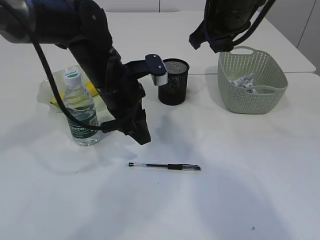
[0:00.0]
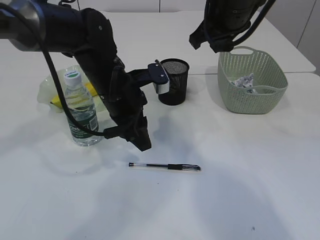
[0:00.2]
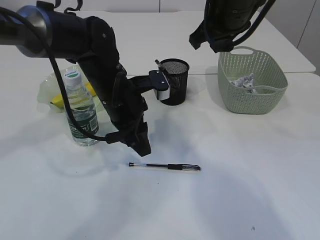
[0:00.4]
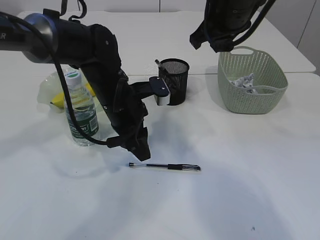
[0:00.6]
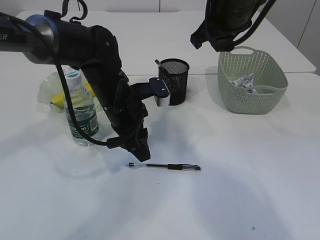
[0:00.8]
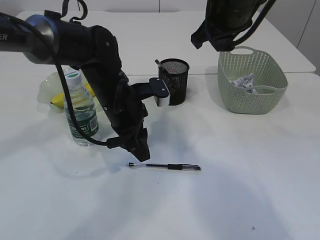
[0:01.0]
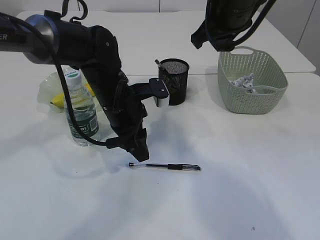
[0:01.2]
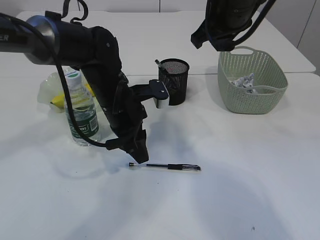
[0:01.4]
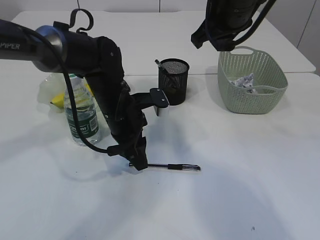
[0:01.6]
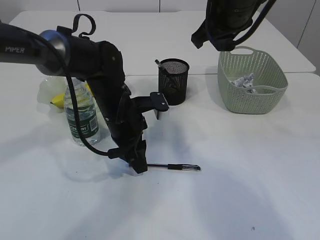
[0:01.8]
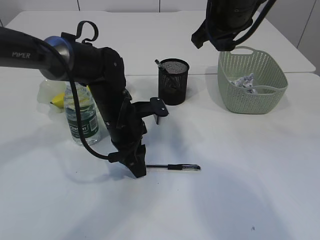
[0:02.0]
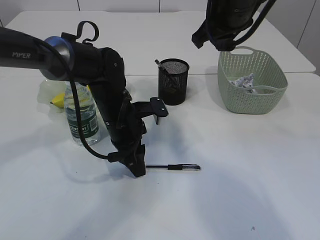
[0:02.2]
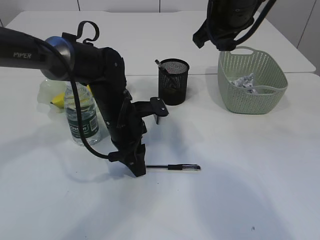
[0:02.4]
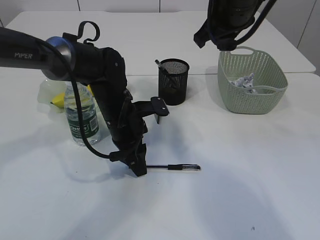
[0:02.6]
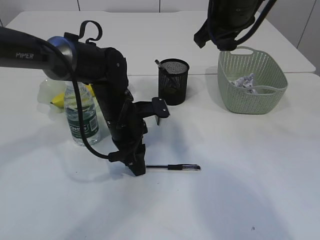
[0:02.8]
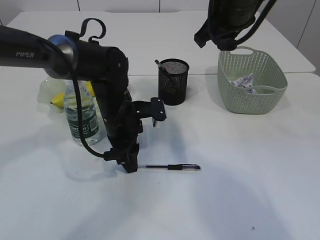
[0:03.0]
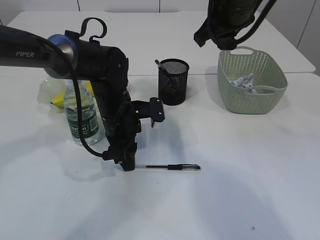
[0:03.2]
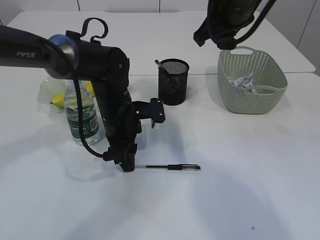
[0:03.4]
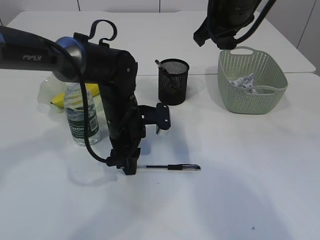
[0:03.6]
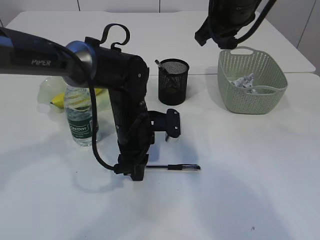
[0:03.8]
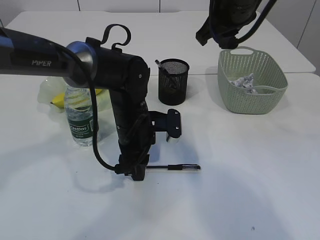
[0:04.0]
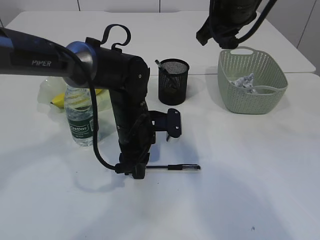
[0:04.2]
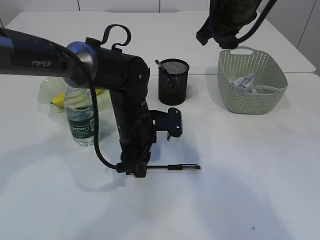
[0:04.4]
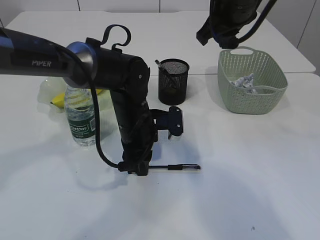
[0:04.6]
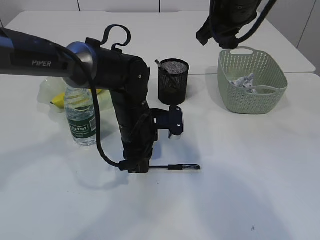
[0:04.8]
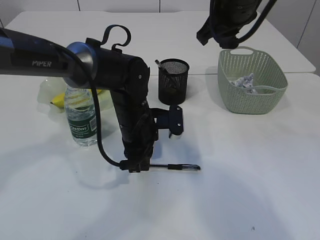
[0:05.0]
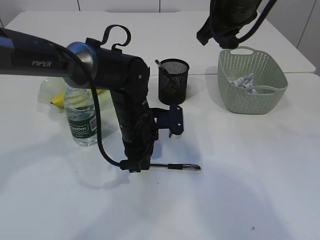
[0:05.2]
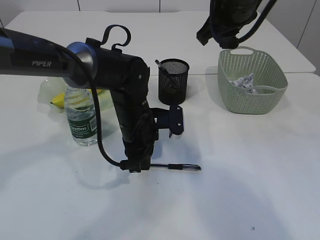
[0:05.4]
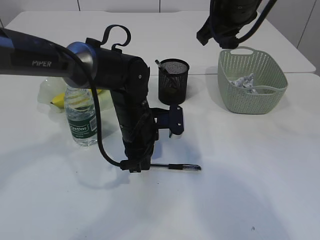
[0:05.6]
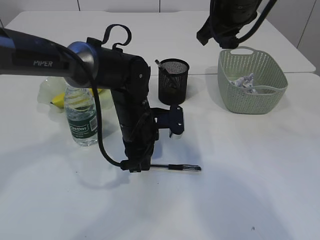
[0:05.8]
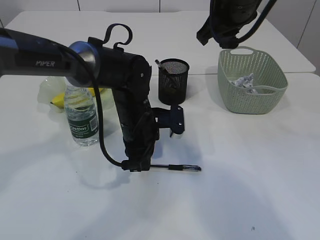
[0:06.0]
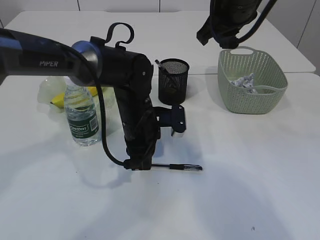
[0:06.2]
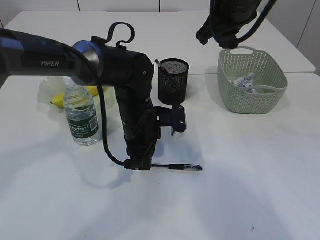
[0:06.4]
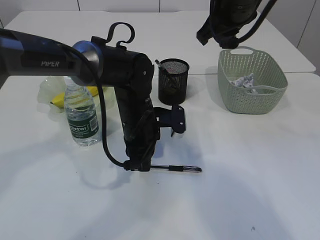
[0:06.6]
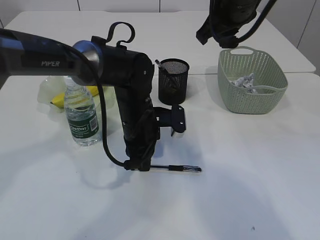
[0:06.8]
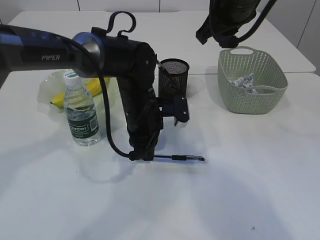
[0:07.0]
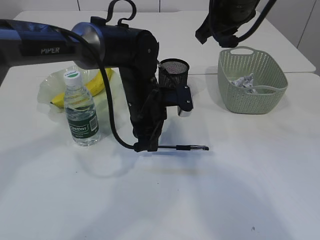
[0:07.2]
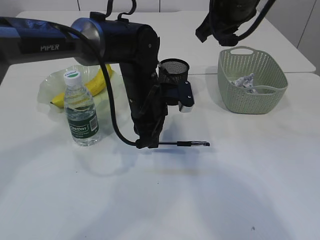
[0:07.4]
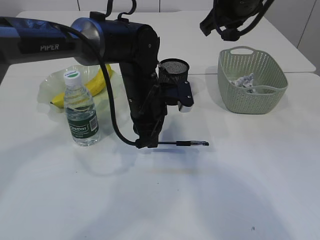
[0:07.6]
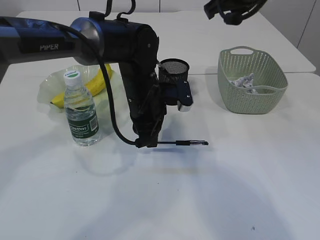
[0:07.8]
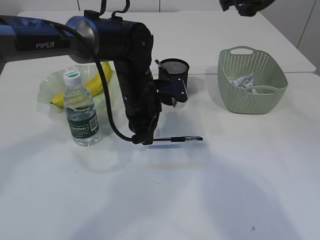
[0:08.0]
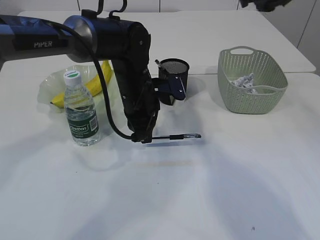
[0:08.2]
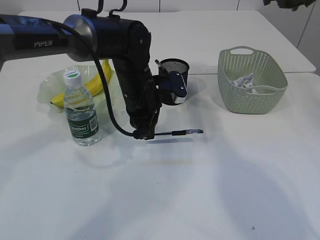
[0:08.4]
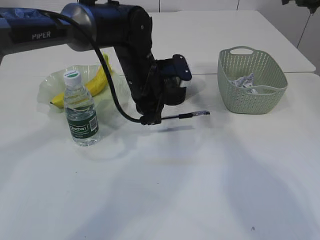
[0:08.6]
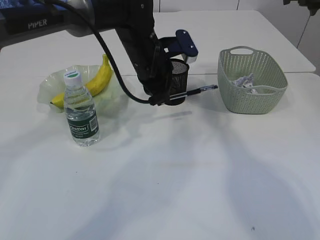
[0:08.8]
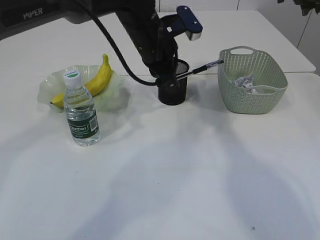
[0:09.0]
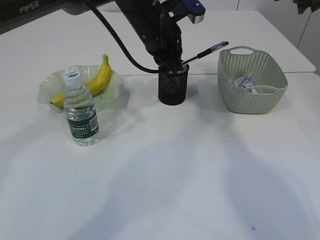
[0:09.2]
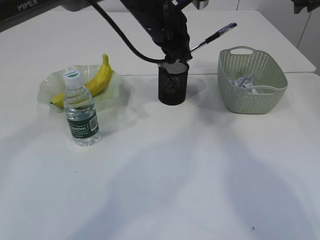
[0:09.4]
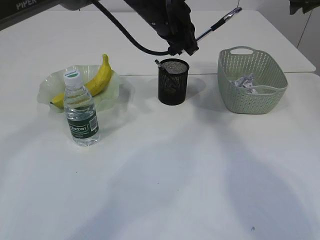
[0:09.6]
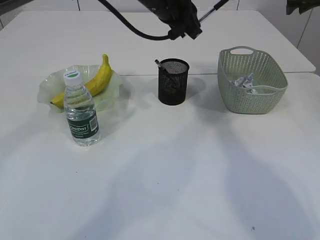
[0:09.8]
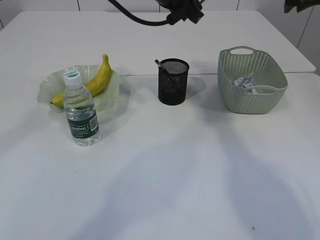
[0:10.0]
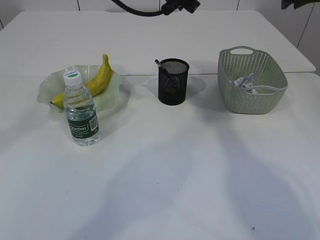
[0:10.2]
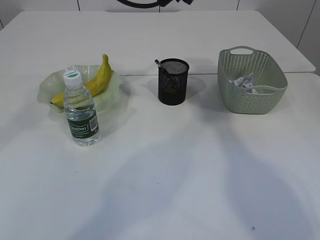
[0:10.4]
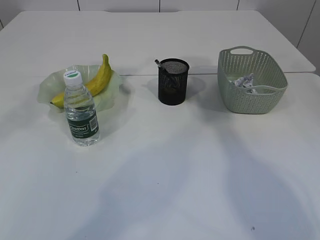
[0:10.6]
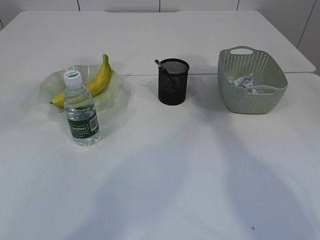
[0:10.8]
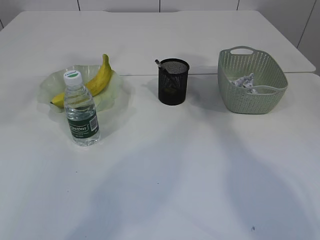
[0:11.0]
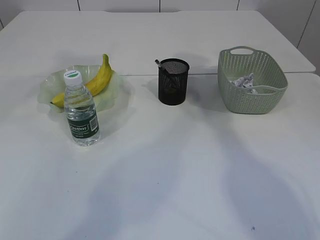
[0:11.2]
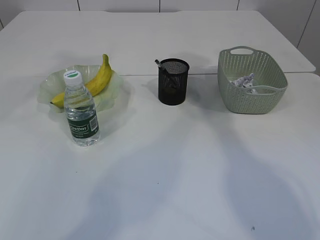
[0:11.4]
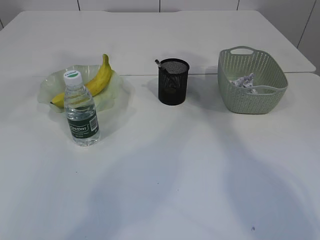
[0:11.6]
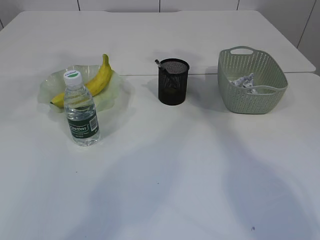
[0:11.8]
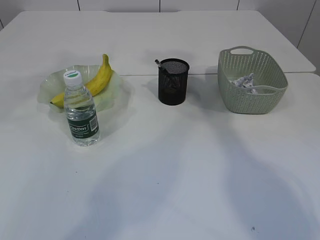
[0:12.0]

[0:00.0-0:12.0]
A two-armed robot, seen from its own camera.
Step, 0:00.0 to 0:08.4: Pick up the pen with left arm.
0:00.0 to 0:01.6: The left gripper goes approximately 5 cm downward.
0:01.6 to 0:04.4: There are only small adjustments of the grippers.
0:04.4 to 0:06.0: The left gripper closes up.
0:06.0 to 0:07.6: The grippers make only small movements.
0:07.6 to 0:09.0: The right gripper heads to the right, covering approximately 15 cm, while the left gripper shifts some 10 cm upward.
0:09.0 to 0:10.4: The left gripper is displaced upward by roughly 10 cm.
0:10.4 to 0:12.0: The two grippers go roughly 10 cm upward and to the left.

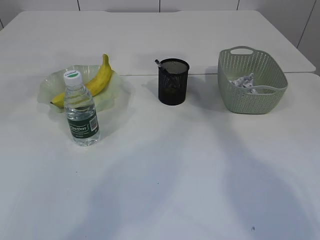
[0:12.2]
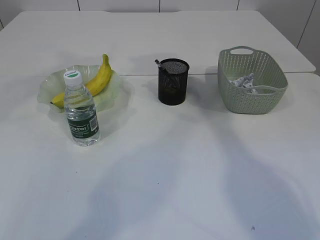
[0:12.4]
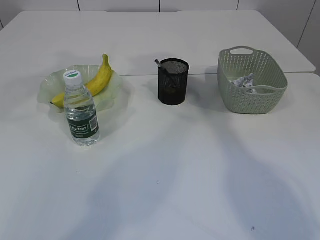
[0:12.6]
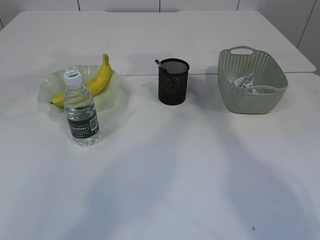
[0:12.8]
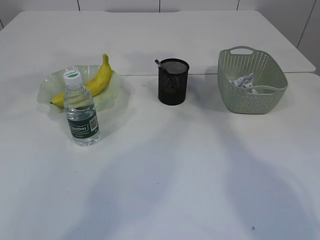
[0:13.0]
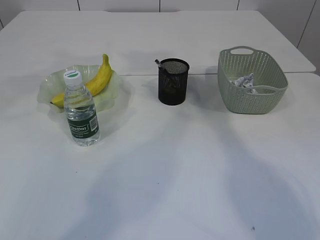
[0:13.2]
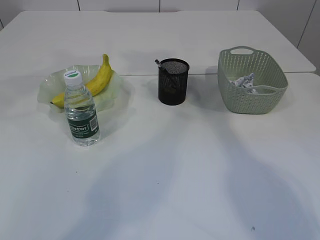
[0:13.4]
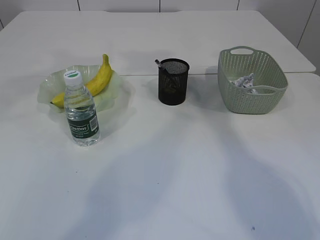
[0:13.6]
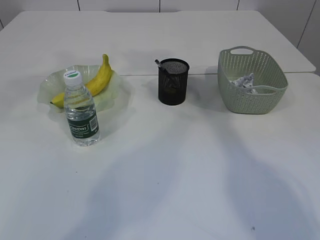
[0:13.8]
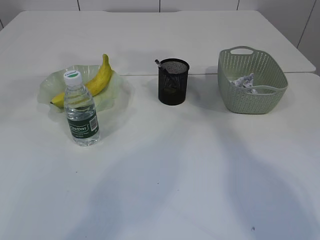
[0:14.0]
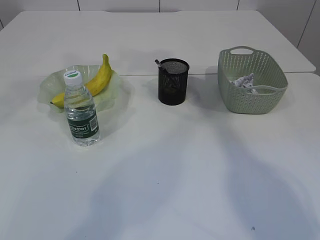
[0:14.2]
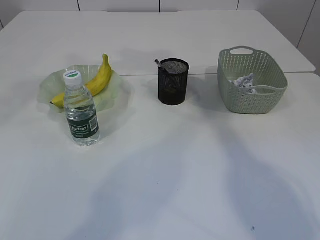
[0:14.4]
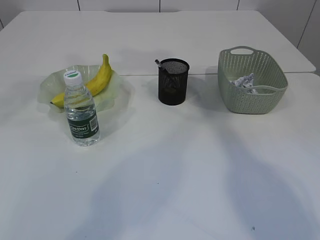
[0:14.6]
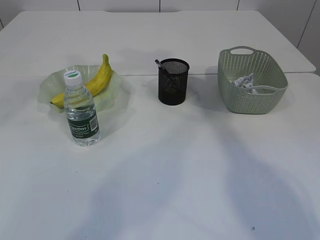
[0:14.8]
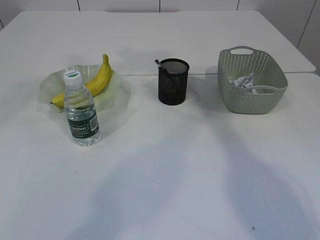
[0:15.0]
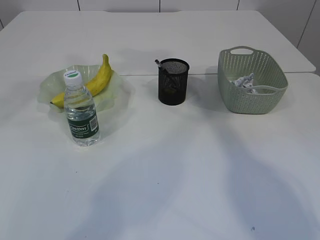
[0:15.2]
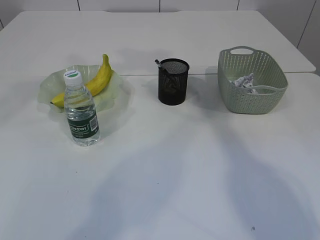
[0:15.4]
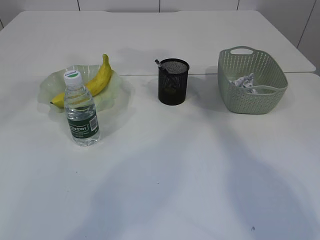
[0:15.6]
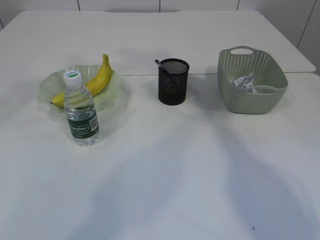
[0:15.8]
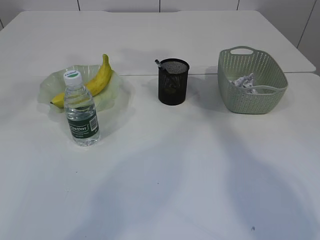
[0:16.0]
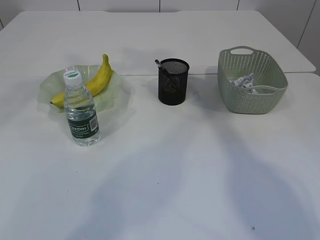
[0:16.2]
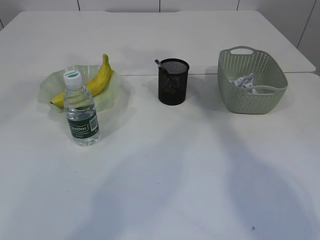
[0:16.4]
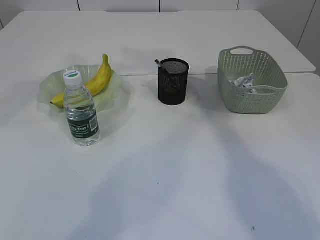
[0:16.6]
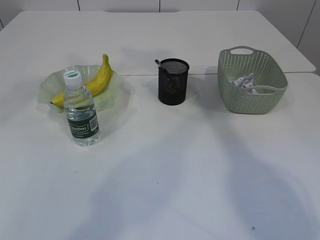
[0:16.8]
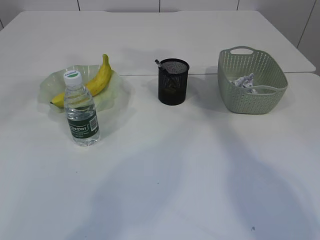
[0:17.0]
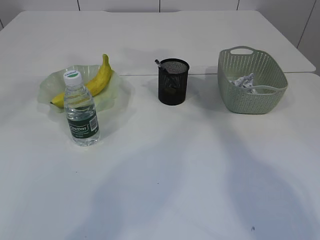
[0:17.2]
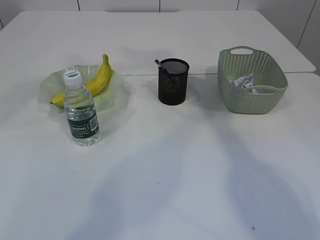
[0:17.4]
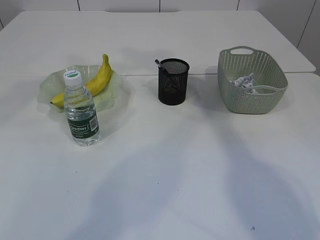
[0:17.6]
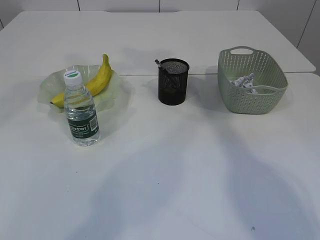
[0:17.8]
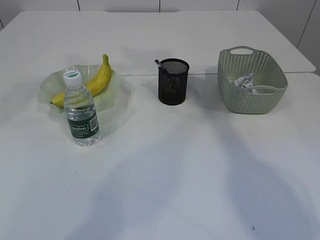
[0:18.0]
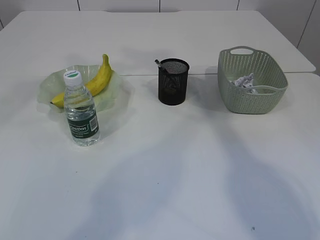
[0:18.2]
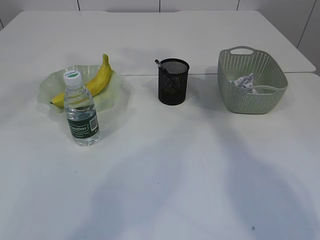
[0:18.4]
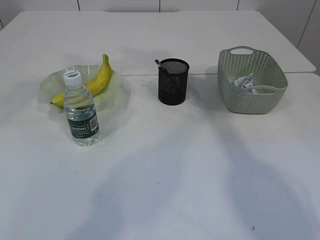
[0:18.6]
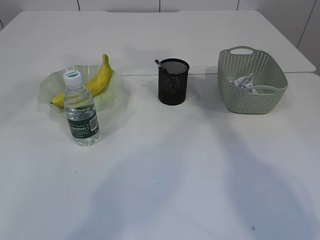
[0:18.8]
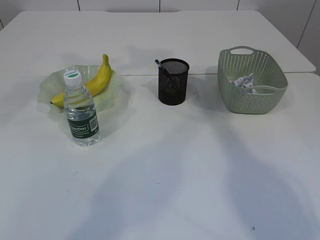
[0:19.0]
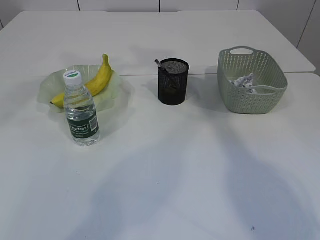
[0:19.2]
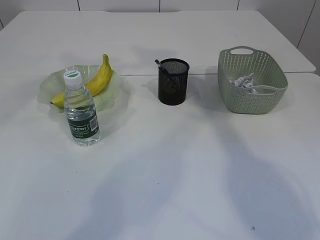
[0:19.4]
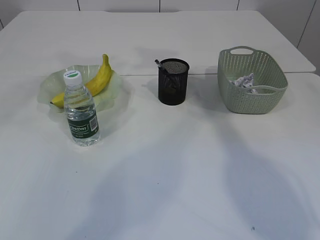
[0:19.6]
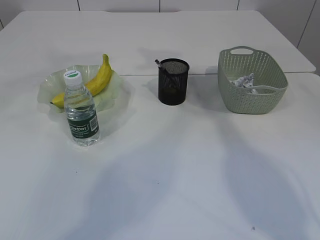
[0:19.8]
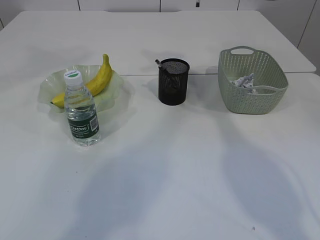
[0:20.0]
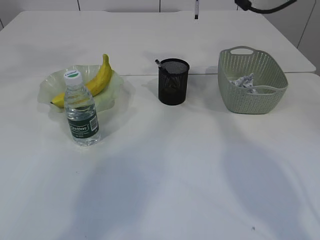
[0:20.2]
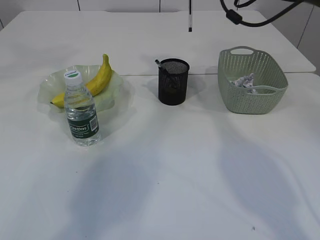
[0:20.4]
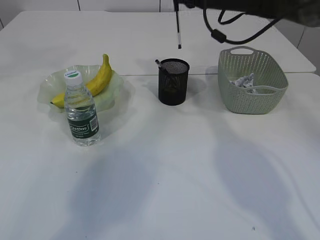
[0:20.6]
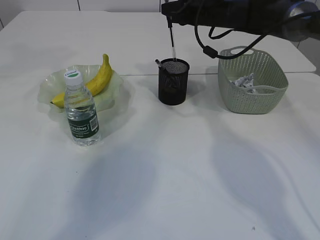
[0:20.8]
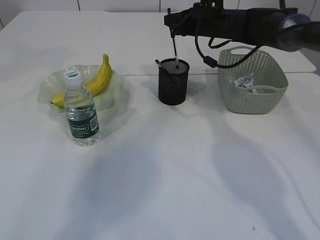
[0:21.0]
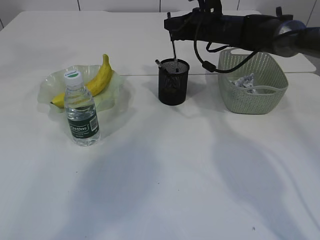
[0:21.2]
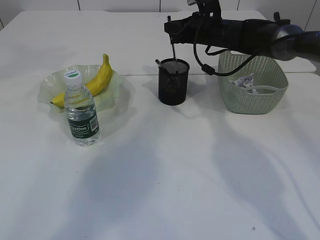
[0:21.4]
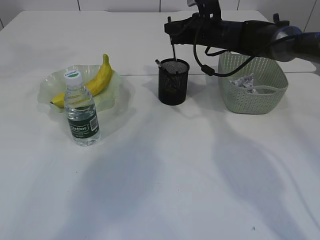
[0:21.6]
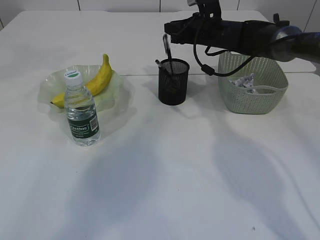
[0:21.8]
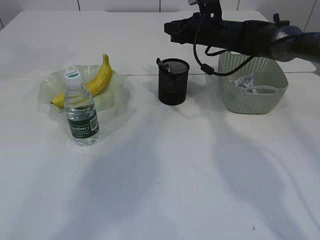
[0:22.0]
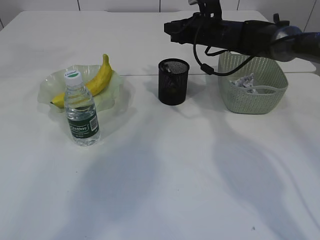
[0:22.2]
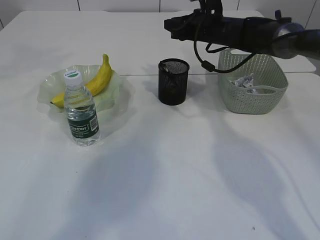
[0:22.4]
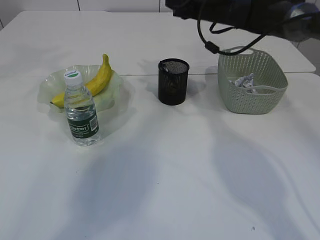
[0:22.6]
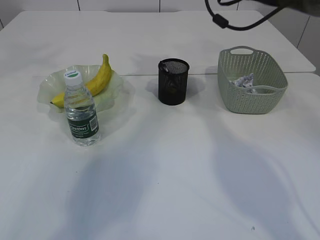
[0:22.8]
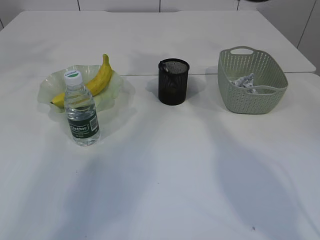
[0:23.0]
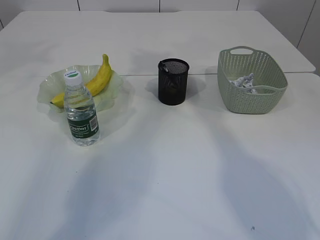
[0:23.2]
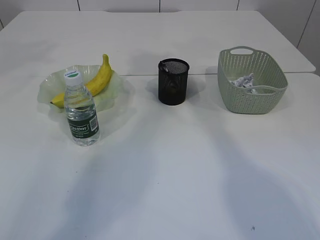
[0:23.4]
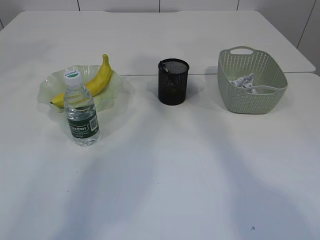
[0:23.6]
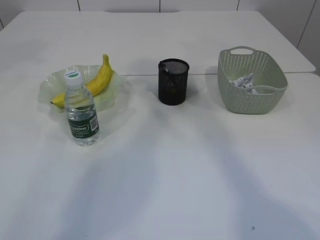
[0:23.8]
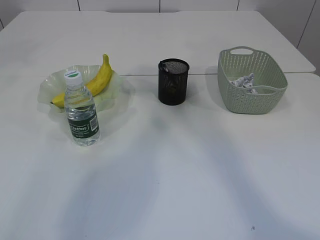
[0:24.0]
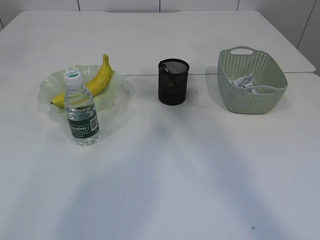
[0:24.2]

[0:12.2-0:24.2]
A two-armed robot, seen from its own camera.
Step, 0:20.2 to 0:21.8: Place the pen into the pen holder.
0:15.2 to 0:18.2: Both grippers stay put.
0:19.8 to 0:21.2: The right gripper moves downward, roughly 20 cm; the left gripper moves to the left, approximately 10 cm.
0:21.2 to 0:22.6: There are only small adjustments of the grippers.
0:22.6 to 0:24.2: The left gripper moves upward and backward, roughly 10 cm; the right gripper heads upward and backward, covering some 40 cm.
